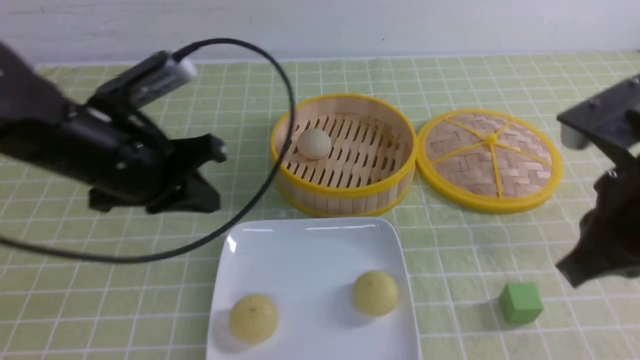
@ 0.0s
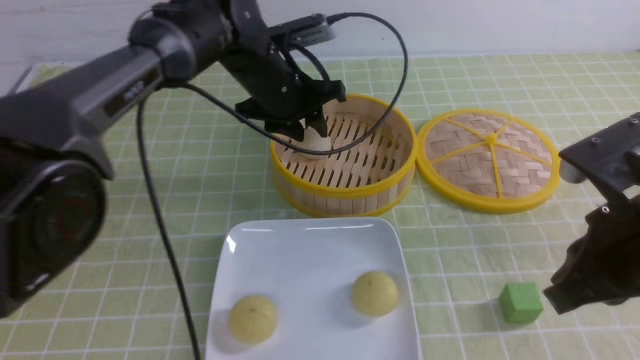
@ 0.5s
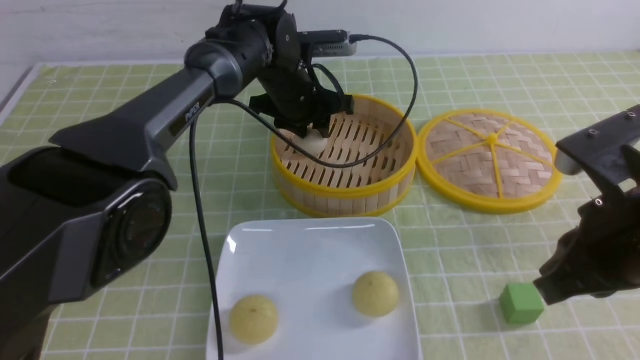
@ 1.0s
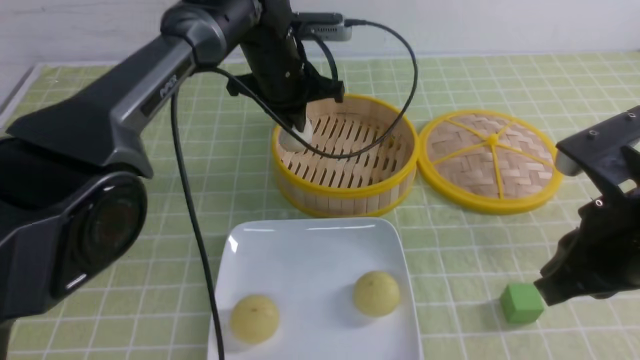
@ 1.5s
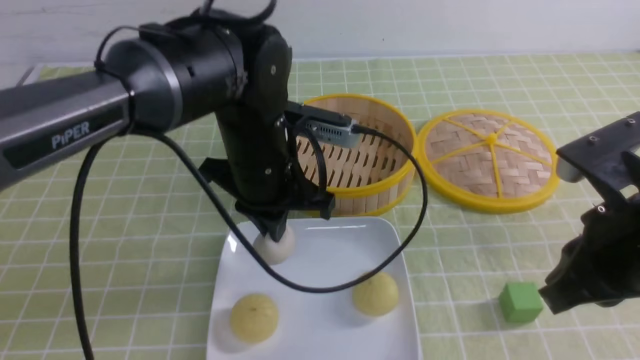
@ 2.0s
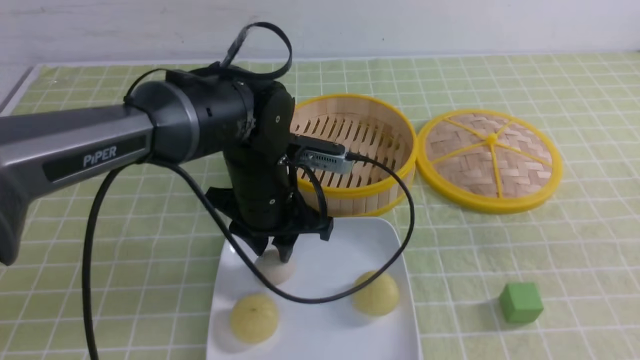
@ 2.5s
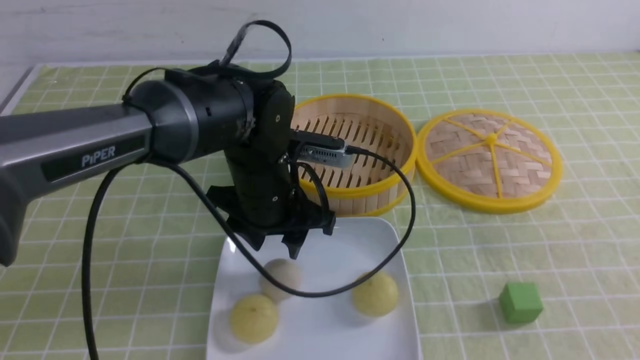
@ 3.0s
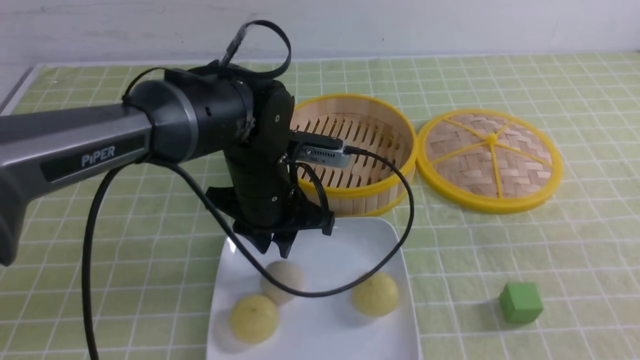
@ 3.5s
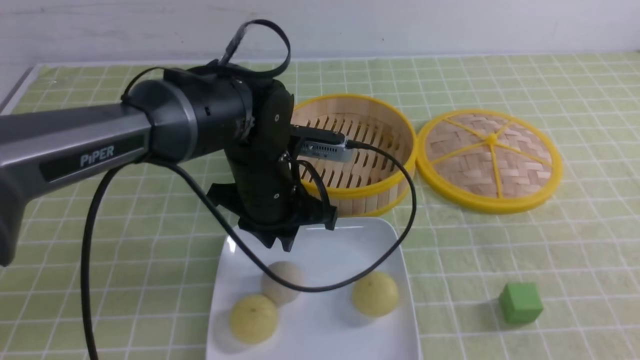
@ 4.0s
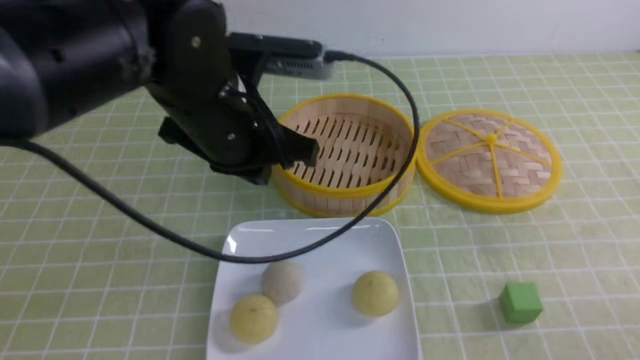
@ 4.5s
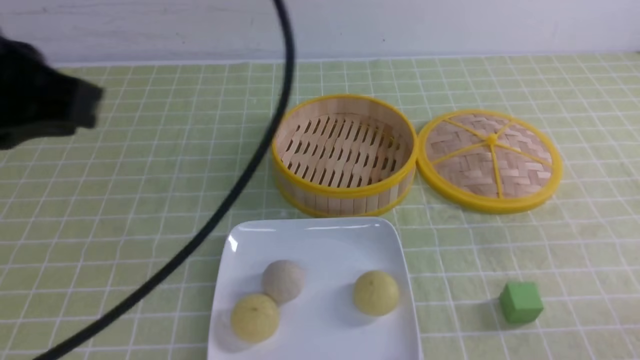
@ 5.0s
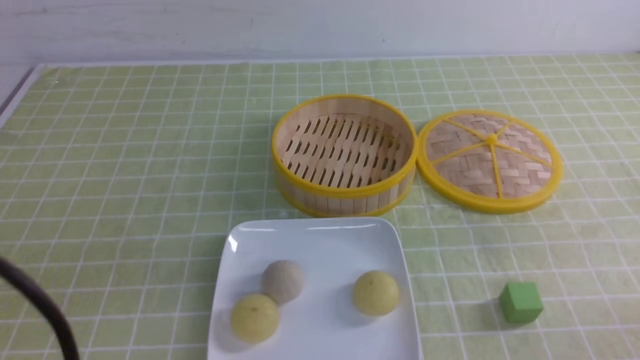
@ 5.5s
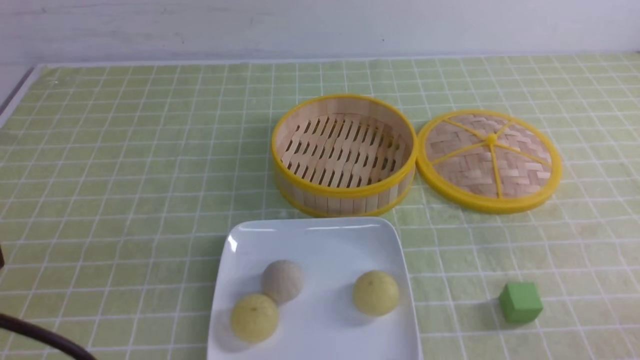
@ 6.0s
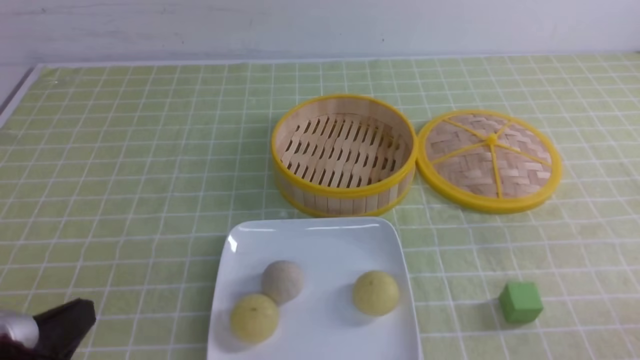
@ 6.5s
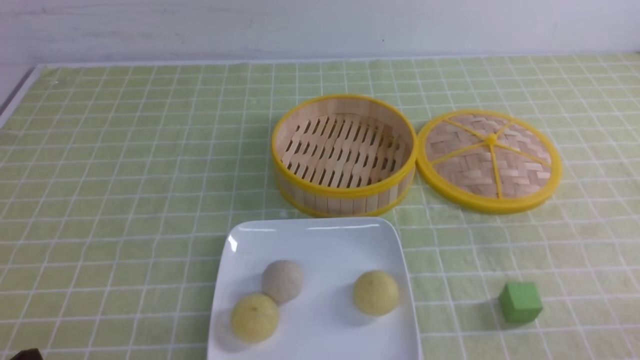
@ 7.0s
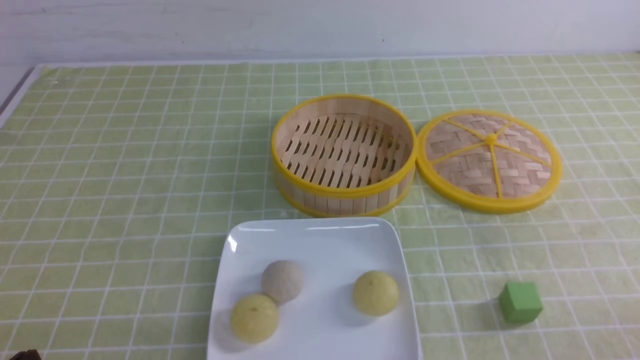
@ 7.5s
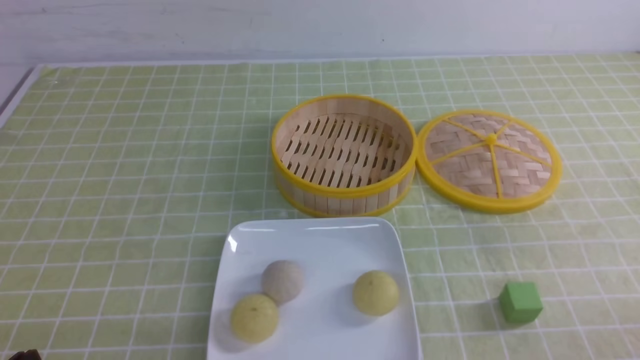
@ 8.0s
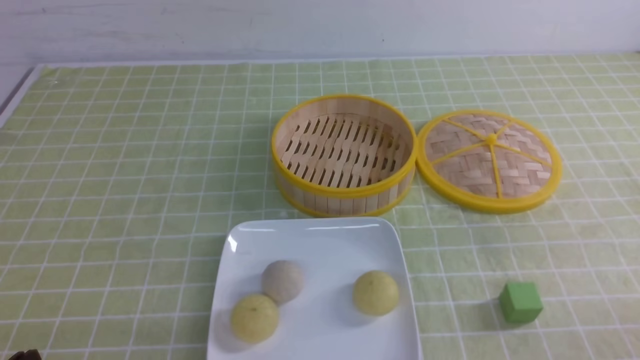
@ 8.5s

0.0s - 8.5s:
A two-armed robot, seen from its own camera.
Step, 1.5s - 2.5s: use the left arm to put the steamed stuffed bun into the plate.
0.0s - 2.0s: The left gripper heads to the right, covering roughly 10 cm, goes forward and returns, about 20 cm each way, and opens and closes again.
2.0s - 4.0s: The right gripper travels backward and to the right by roughly 15 cm; the left gripper opens, then closes again.
4.0s - 6.5s: The left gripper goes about 30 cm backward and to the left; the right gripper moves downward, approximately 10 cm.
6.5s - 8.5s: The left gripper moves downward, some 5 cm.

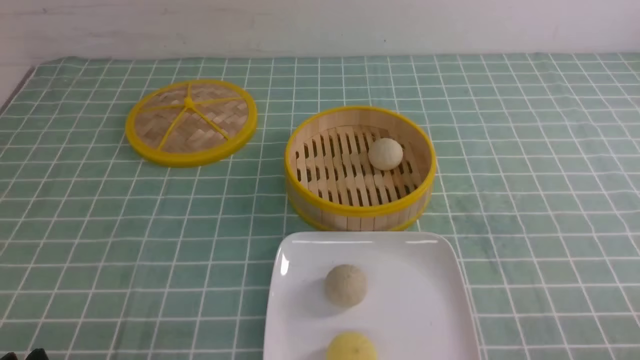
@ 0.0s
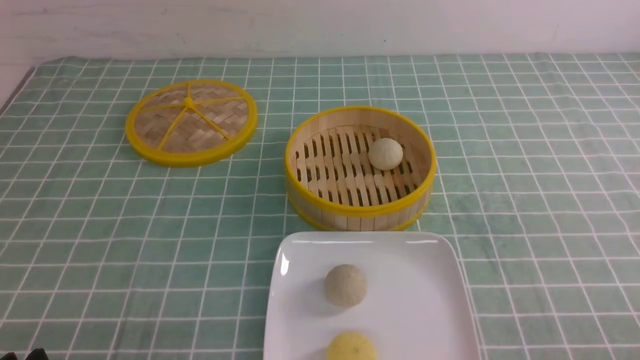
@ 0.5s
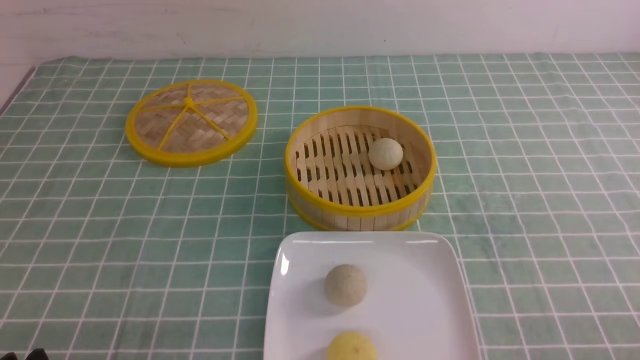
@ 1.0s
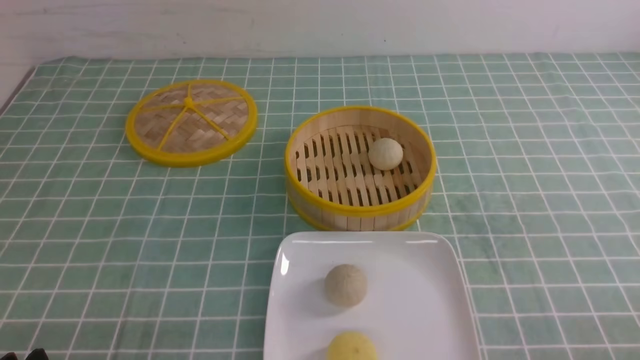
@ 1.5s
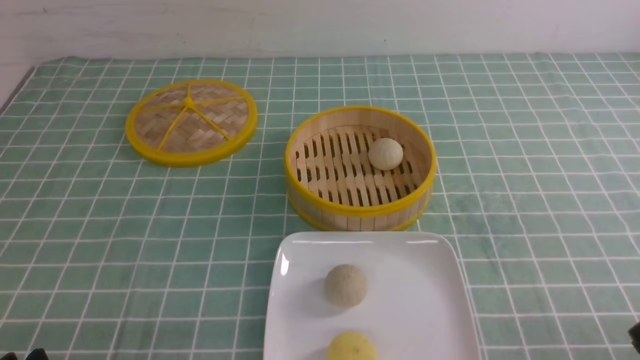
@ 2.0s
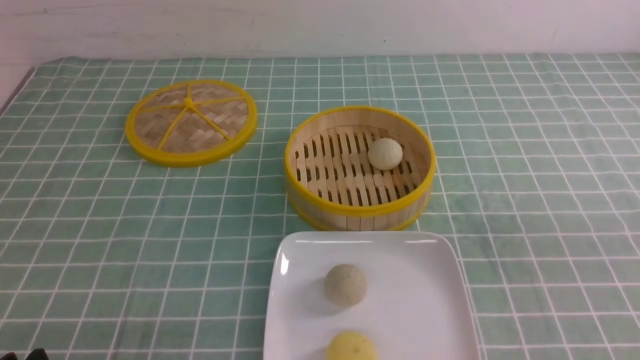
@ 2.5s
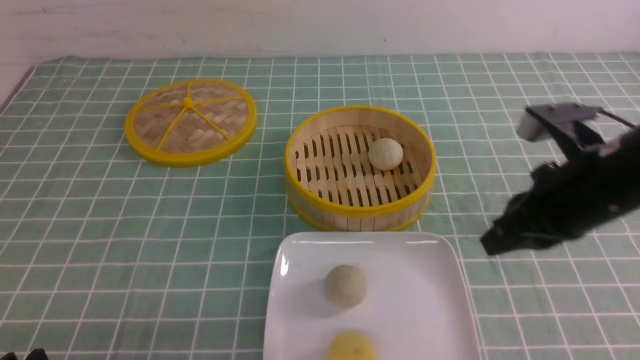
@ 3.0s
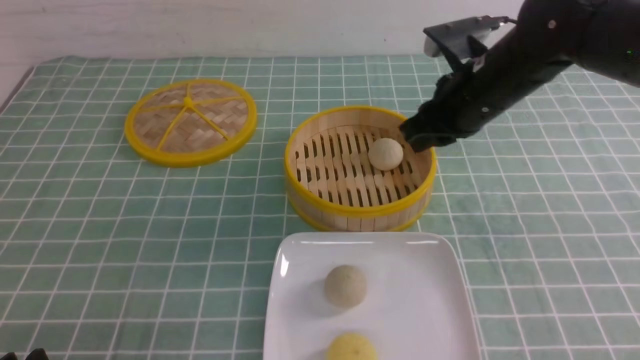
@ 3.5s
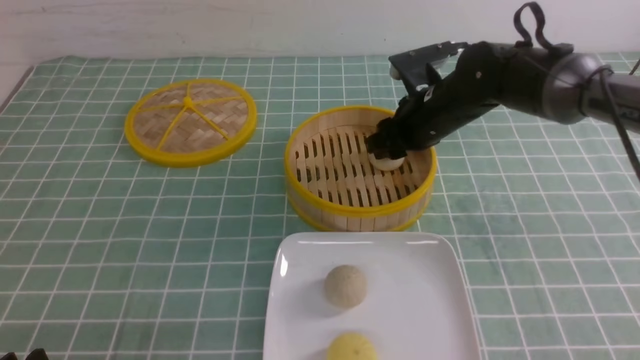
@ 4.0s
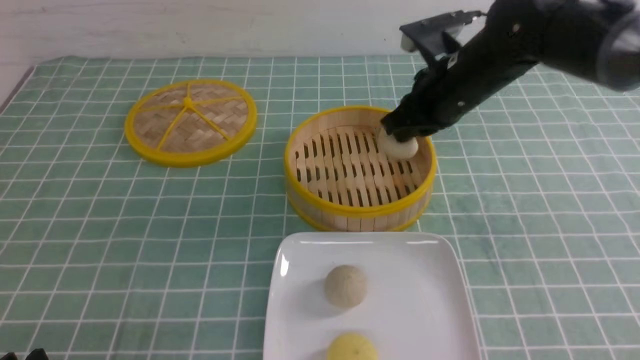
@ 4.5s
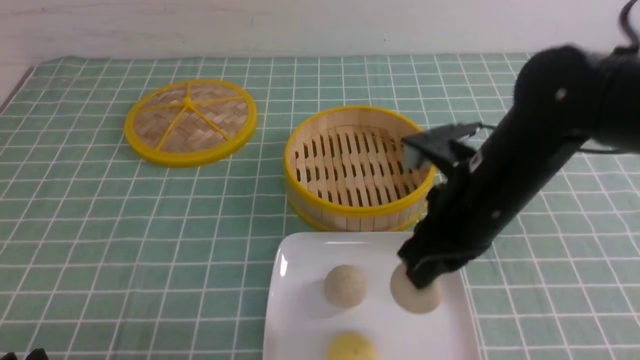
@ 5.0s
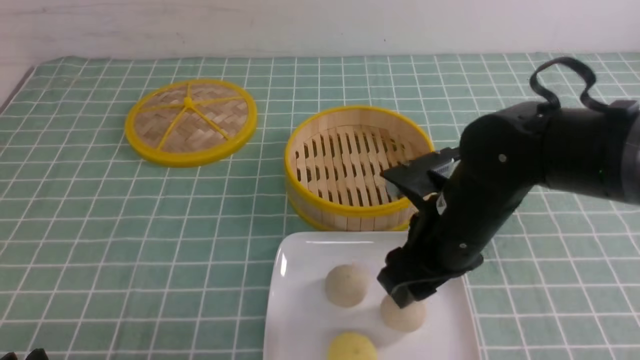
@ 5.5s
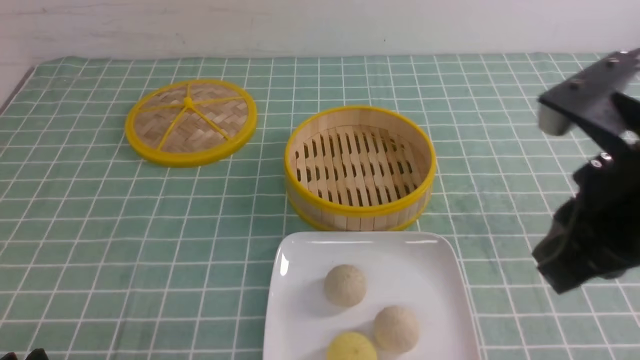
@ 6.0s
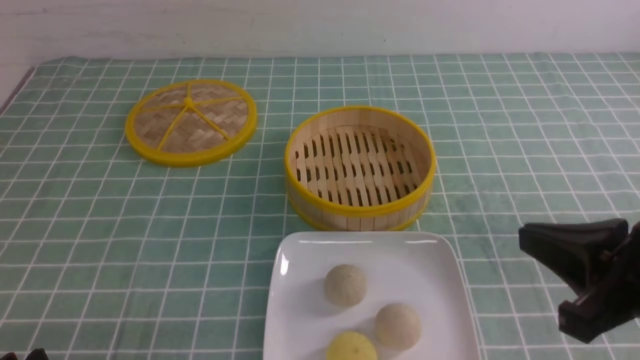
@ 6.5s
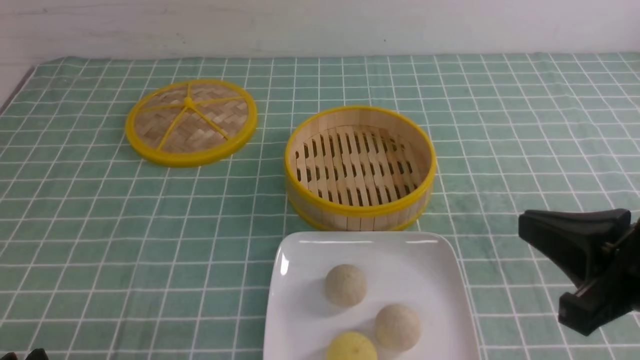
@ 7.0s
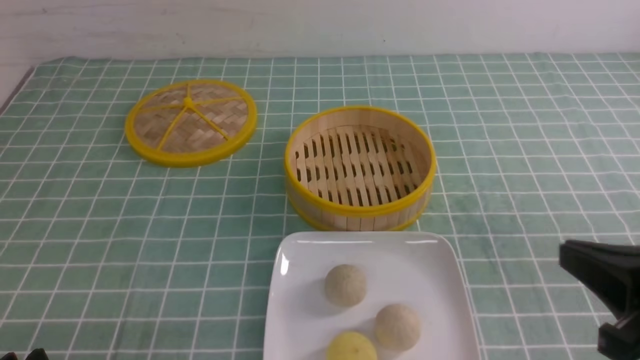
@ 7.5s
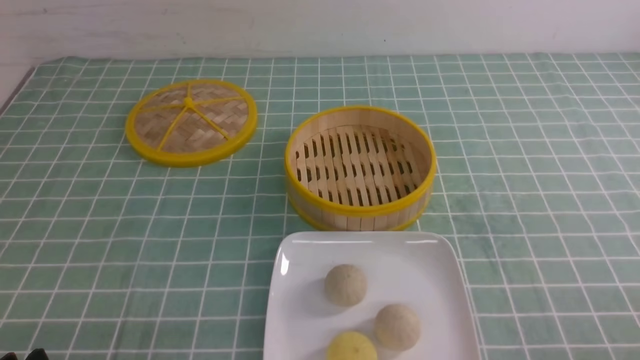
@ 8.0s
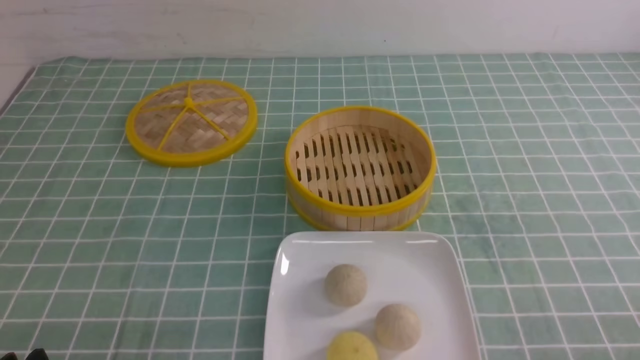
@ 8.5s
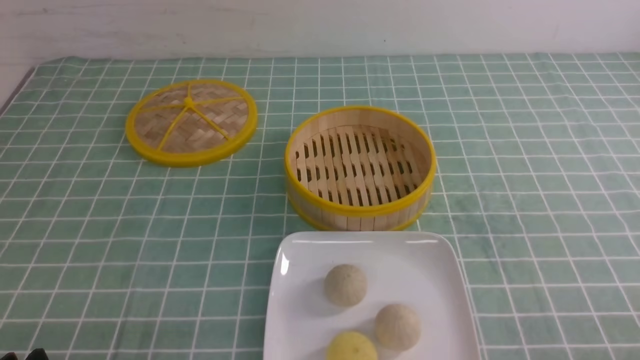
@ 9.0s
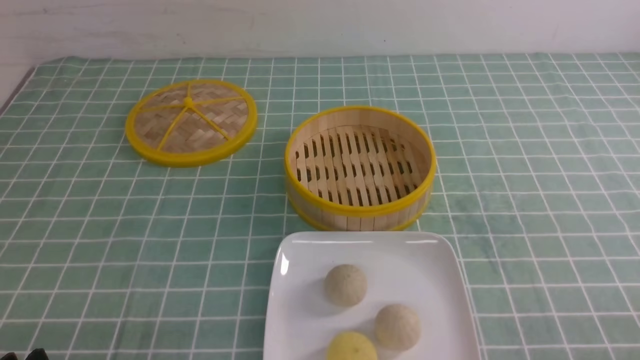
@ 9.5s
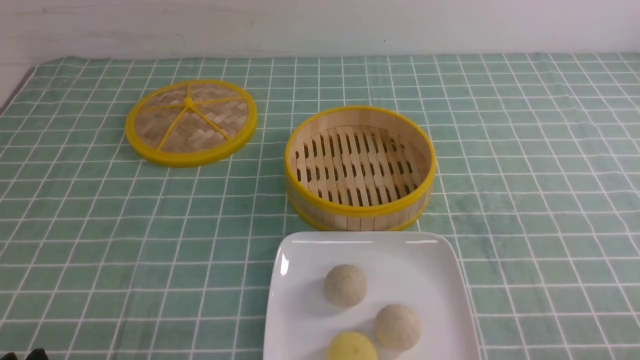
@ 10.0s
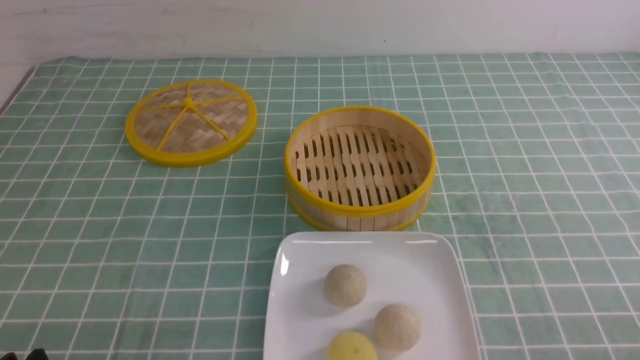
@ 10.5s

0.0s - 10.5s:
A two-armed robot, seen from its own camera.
Step, 0.0s - 4.0s: use the right arm to grab the steamed stuffed bun that is closest to it.
Step, 4.5s - 5.0s: use the right arm to put the steamed stuffed bun into the plate.
2.0s - 4.0s: The right gripper travels forward and to the left by some 40 cm, and closes, then opens again.
4.0s - 6.5s: The right gripper heads backward, covering some 30 cm, and closes up.
6.5s - 8.5s: The right gripper shifts some 15 cm downward, to the right and backward.
8.5s - 10.5s: Both grippers stay put.
